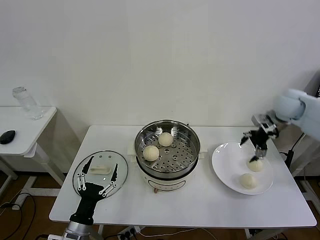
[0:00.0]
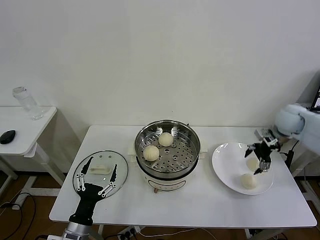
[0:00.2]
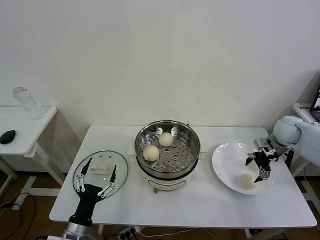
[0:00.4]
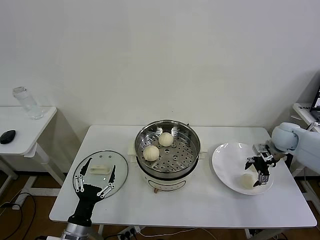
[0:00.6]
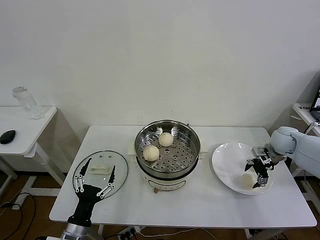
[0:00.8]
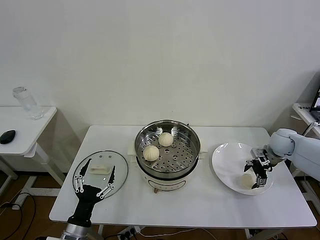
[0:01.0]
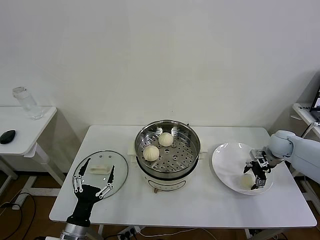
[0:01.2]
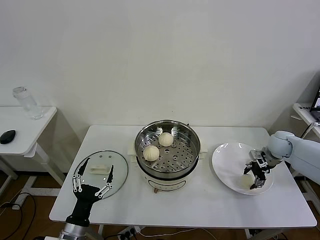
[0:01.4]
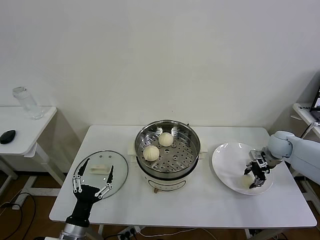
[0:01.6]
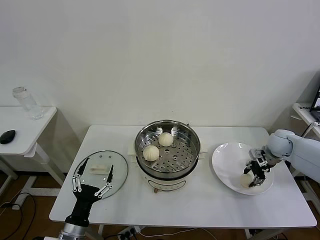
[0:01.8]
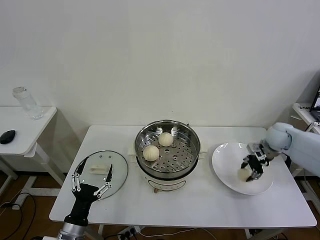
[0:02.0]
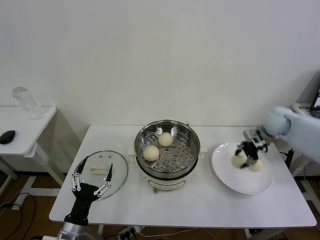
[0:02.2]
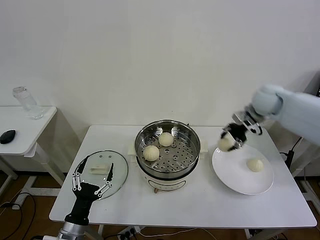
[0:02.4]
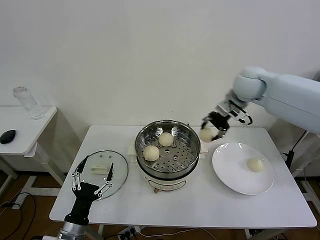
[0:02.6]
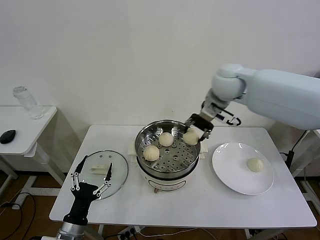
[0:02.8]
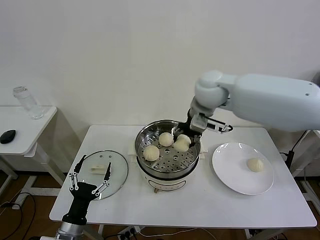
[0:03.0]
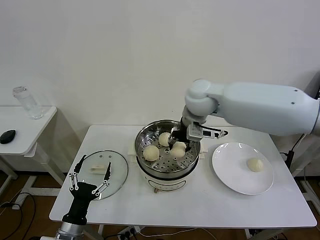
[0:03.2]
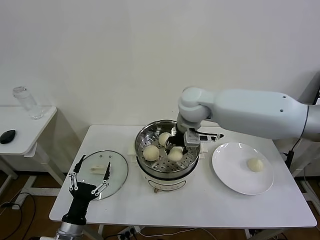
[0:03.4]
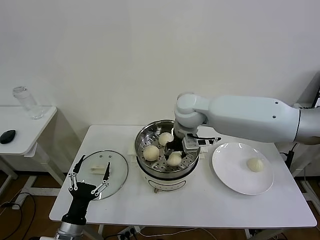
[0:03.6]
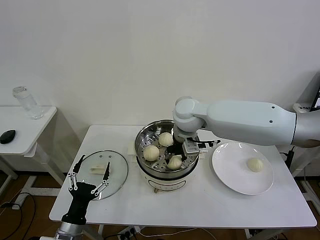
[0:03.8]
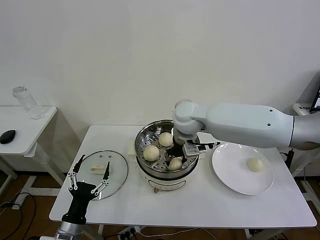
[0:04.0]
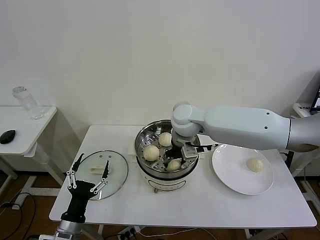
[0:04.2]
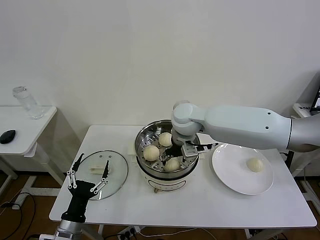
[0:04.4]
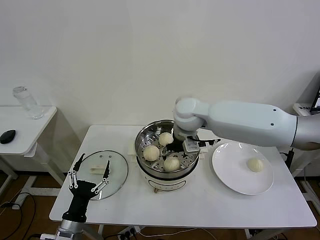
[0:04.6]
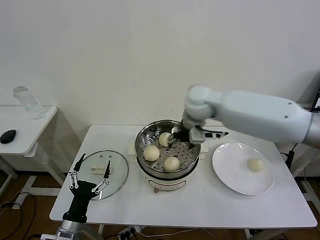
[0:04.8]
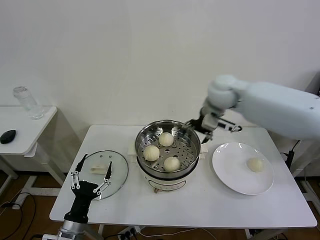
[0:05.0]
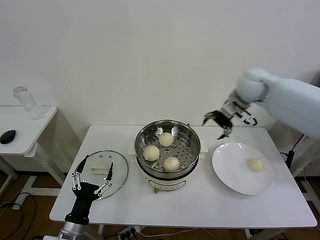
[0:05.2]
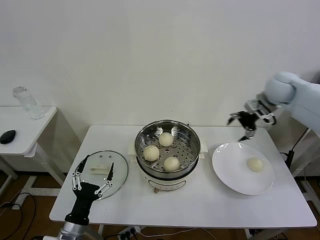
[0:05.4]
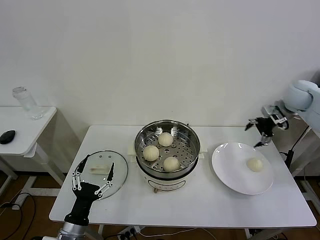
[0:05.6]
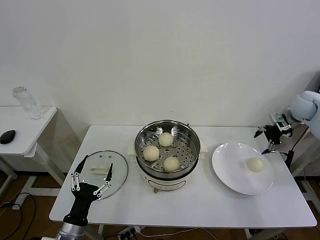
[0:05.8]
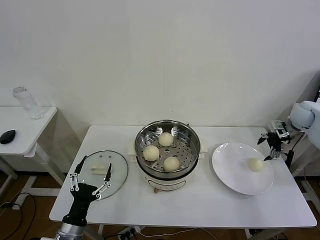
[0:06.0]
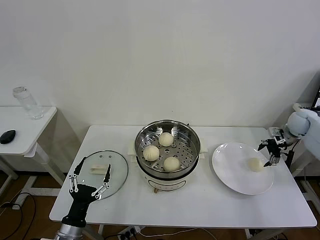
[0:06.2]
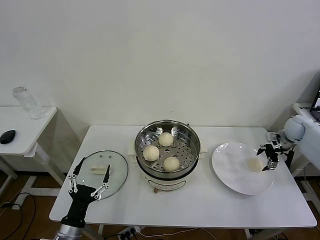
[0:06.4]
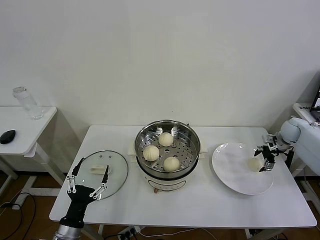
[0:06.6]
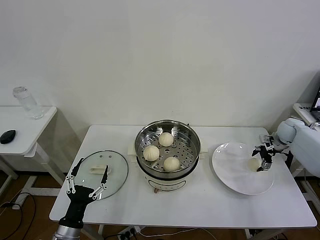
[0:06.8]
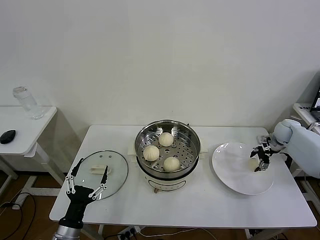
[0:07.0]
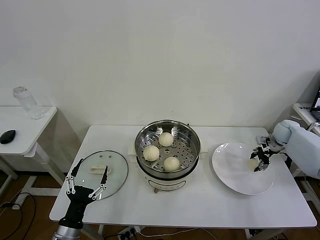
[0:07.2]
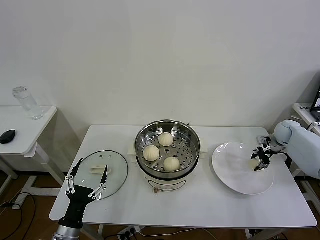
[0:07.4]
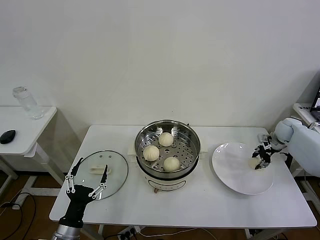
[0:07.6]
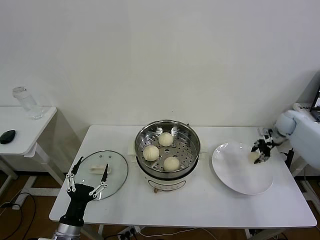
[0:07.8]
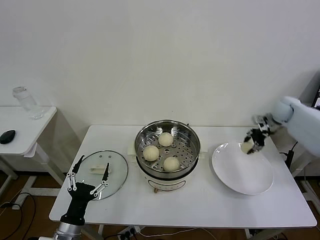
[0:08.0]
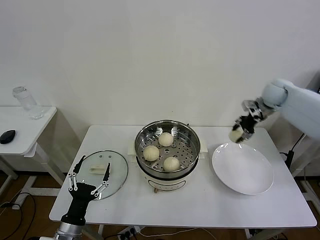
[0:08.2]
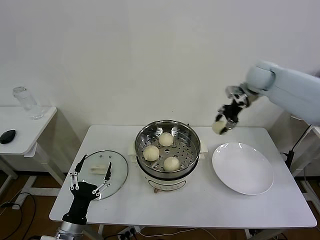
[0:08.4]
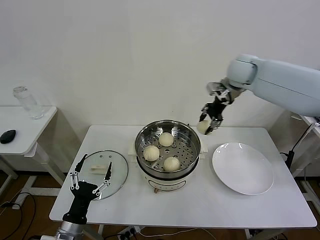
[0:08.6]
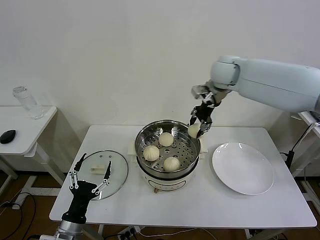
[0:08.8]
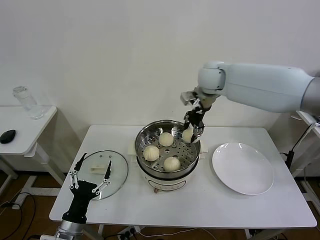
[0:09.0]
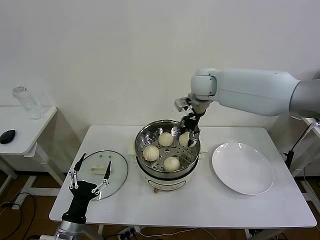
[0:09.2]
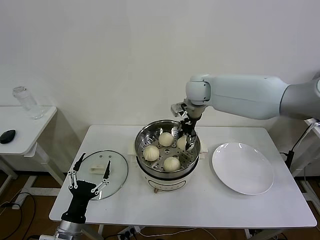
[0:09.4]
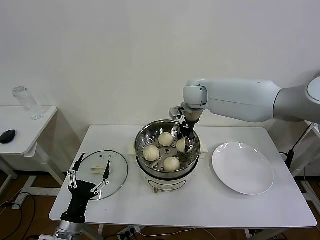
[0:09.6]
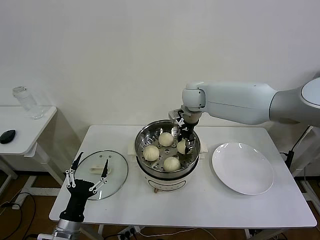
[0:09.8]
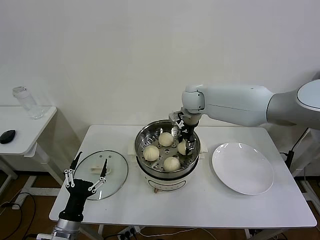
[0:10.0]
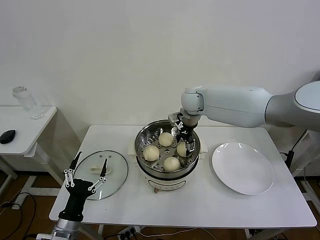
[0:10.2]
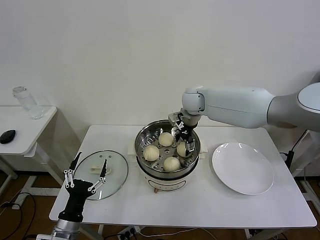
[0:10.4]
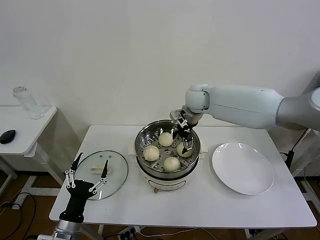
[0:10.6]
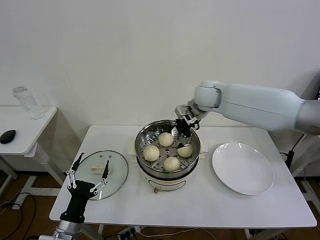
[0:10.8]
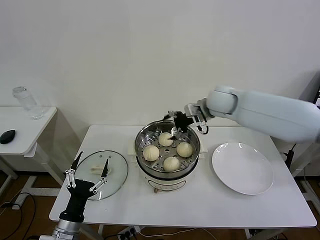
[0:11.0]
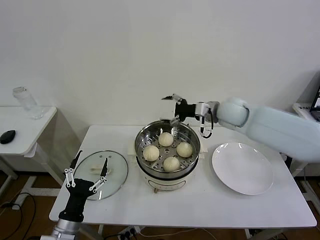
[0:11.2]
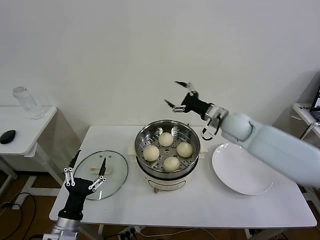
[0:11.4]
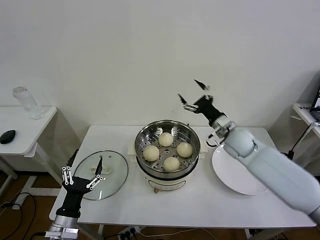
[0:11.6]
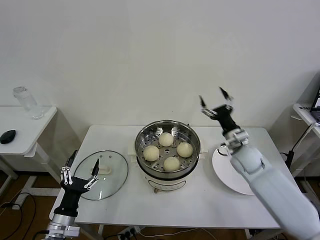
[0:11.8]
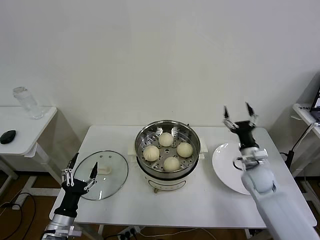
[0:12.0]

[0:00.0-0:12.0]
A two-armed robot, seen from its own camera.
Task of the whole recording: take steamed baozi put them in steamer then cover it.
Step, 0:00.0 to 0:01.6: Grasp the baozi in the plate with right gripper.
Step, 0:01.8 to 0:04.4: Place the baozi on the steamer with right gripper.
Step, 0:04.6 to 0:07.4: Grasp the baozi in the plate with right gripper.
Step, 0:07.6 to 0:10.4: Place the baozi on the steamer with right gripper.
0:00.0 to 0:01.6: The right gripper shifts about 15 cm downward, and closes its fingers.
0:01.6 to 0:03.0: The right gripper shifts approximately 40 cm to the left and upward.
0:03.0 to 0:04.4: The right gripper heads downward and to the left, covering about 10 cm, and opens up.
0:04.4 to 0:06.0: The right gripper goes about 40 cm to the right.
0:06.0 to 0:07.6: The right gripper shifts approximately 10 cm downward, and closes its fingers.
0:07.6 to 0:09.0: The right gripper heads to the left and upward, covering approximately 40 cm.
0:09.0 to 0:10.4: The right gripper goes about 10 cm downward, and opens up.
0:10.4 to 0:12.0: The right gripper heads to the right, downward and backward, covering roughly 35 cm.

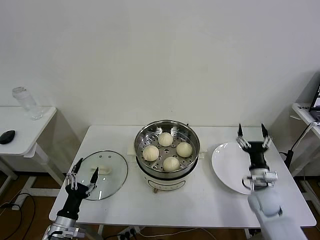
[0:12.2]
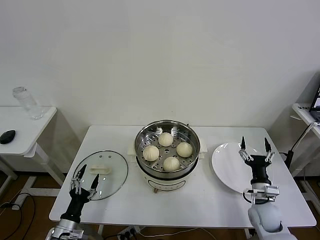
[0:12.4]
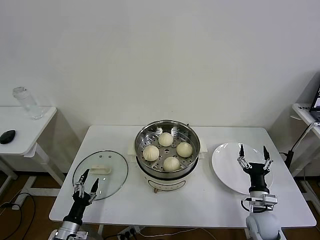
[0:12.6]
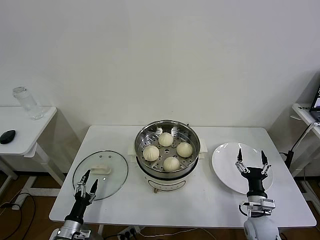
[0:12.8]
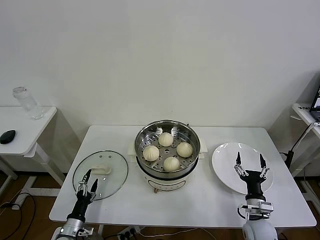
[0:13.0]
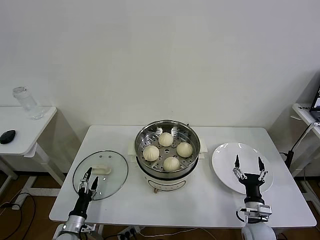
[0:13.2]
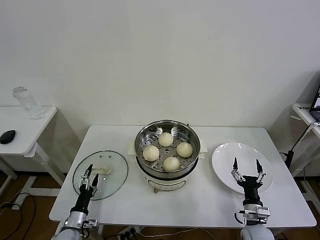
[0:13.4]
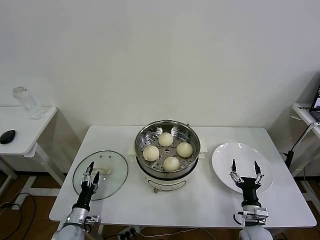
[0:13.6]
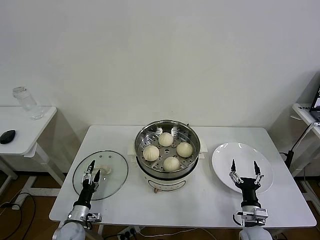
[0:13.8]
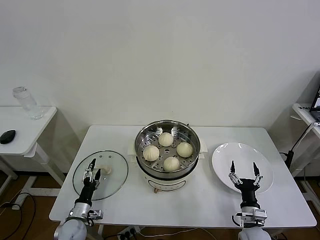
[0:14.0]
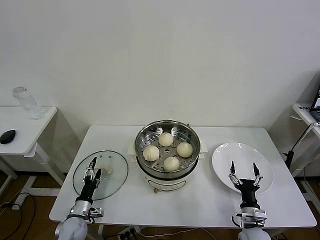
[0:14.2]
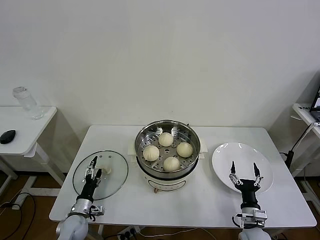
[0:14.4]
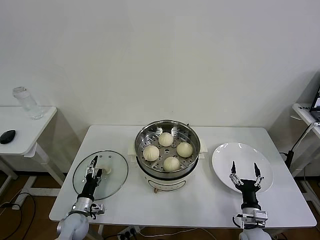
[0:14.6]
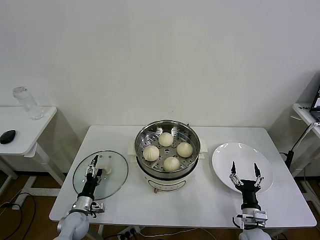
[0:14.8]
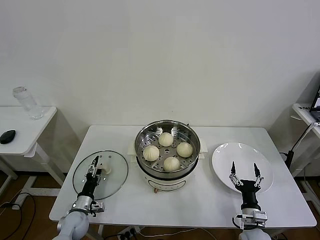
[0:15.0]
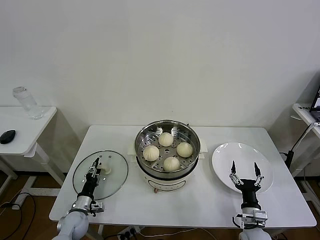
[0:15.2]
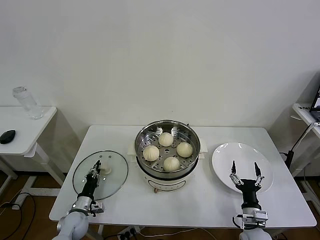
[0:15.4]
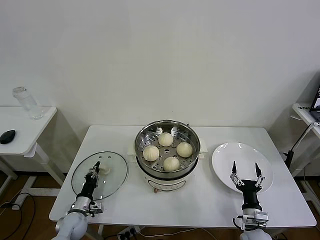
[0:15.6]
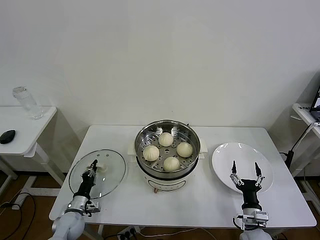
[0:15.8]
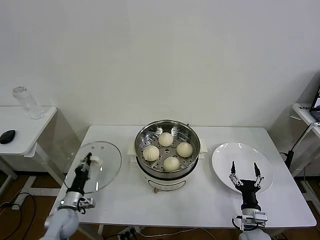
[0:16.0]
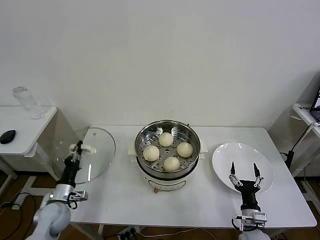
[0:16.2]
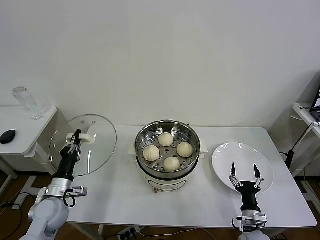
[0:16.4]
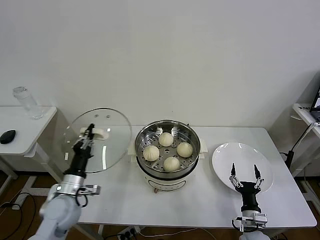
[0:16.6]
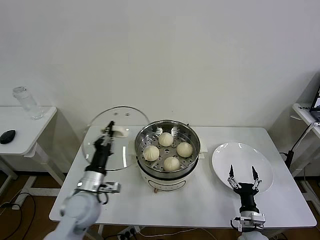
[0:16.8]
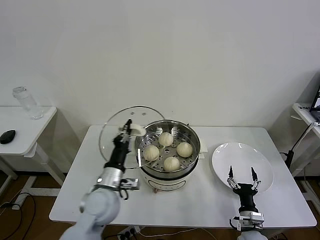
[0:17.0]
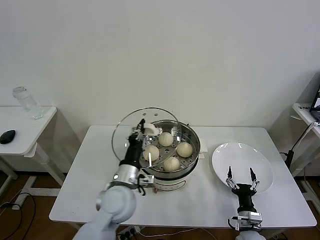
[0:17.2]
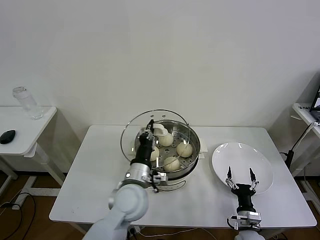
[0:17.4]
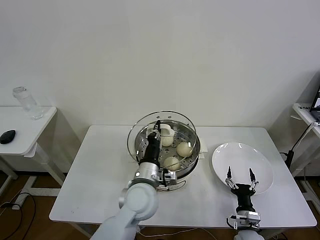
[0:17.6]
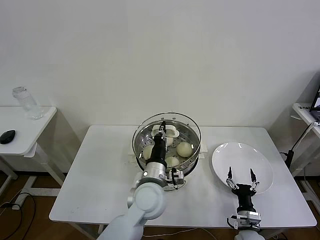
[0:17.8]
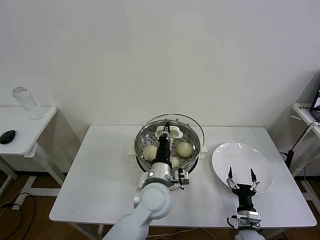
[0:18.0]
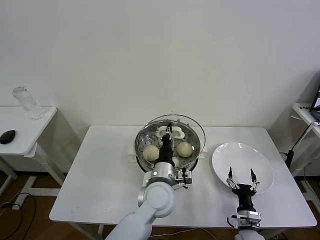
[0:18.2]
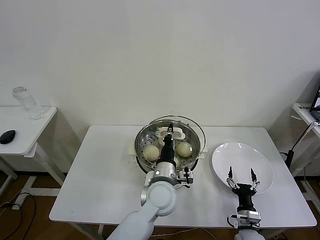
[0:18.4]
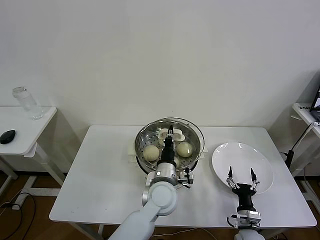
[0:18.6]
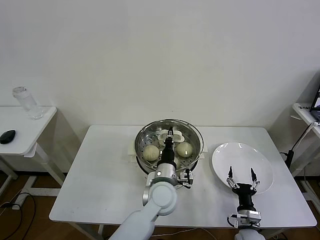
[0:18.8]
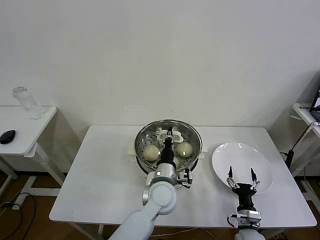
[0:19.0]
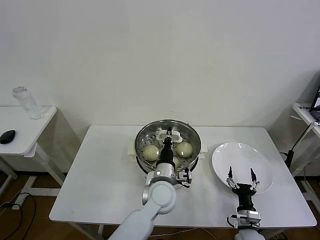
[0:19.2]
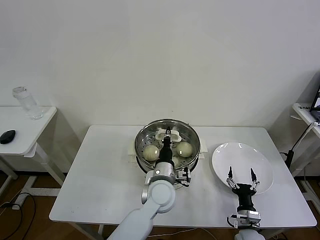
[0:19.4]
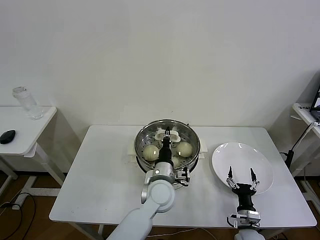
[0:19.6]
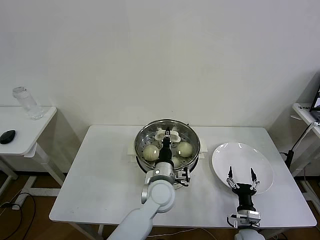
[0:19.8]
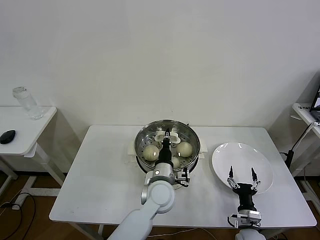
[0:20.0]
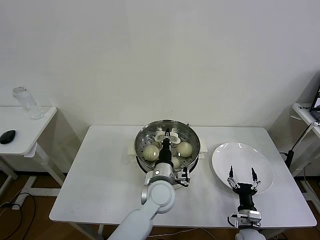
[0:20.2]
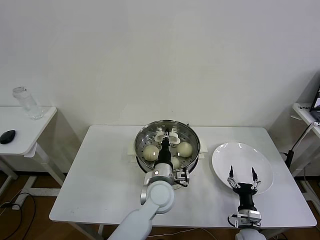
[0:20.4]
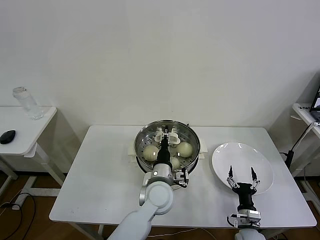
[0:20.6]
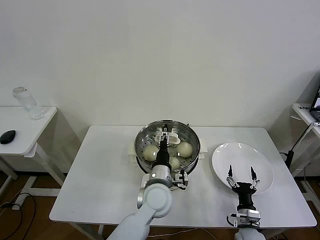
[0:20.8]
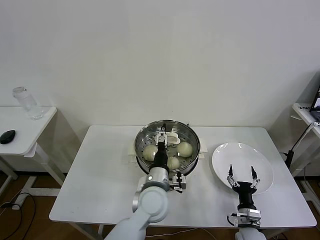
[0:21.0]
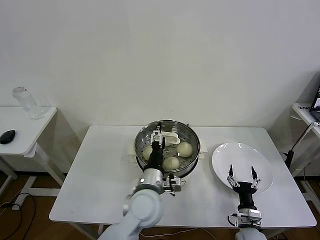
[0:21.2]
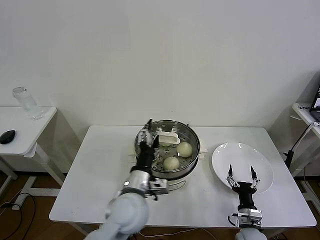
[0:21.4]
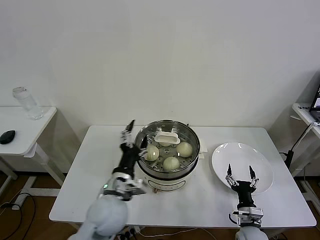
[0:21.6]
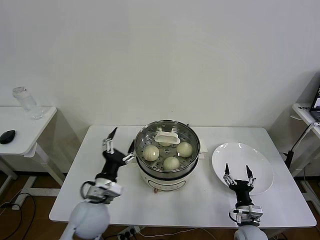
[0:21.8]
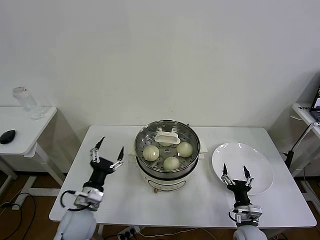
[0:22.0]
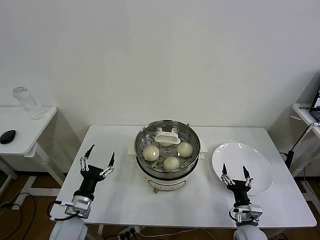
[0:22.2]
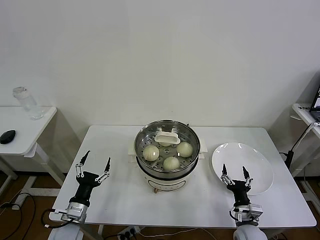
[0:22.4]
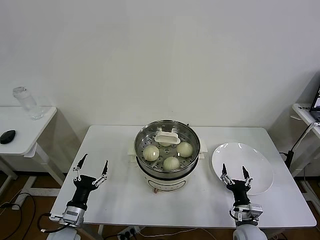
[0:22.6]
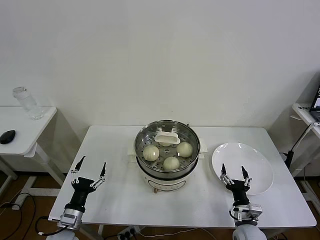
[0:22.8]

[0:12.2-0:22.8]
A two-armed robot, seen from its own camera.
Task of the whole recording: take steamed baozi put them in steamer then cover it.
Step, 0:12.2 to 0:15.6: Grasp the pot lid with left gripper.
Step, 0:15.8 to 0:20.6: Place the pot lid on the steamer with left gripper.
0:12.2 to 0:13.8: The left gripper goes about 10 cm downward and forward. The right gripper moves backward and downward, some 15 cm.
0:13.8 to 0:15.2: The left gripper closes up.
0:15.2 to 0:16.8: The left gripper heads upward and to the right, covering about 20 cm, and closes.
0:16.8 to 0:18.2: The left gripper heads to the right, covering approximately 25 cm.
0:18.2 to 0:19.8: There are only small adjustments of the grippers.
0:19.8 to 0:21.2: The left gripper moves approximately 5 cm, and opens.
0:21.2 to 0:22.8: The left gripper shifts some 30 cm to the left and downward.
